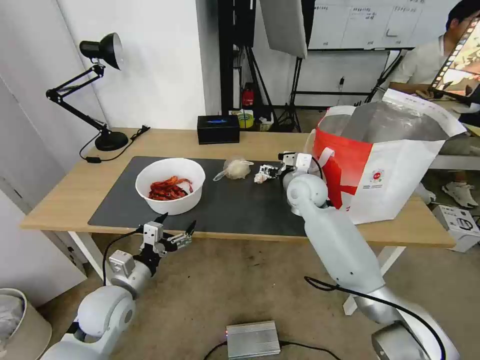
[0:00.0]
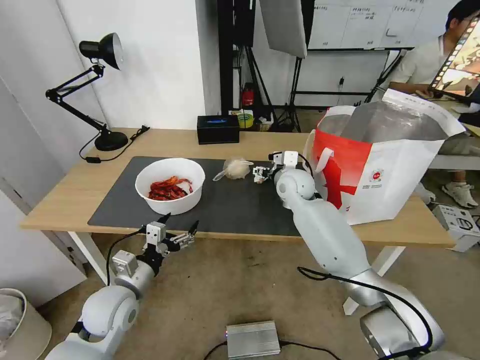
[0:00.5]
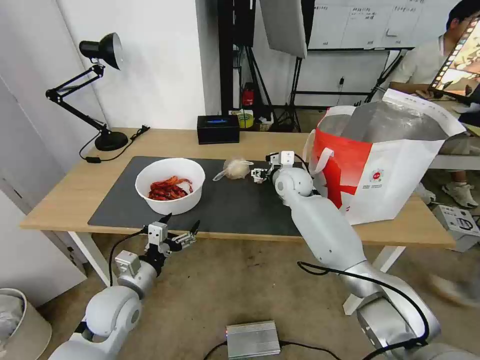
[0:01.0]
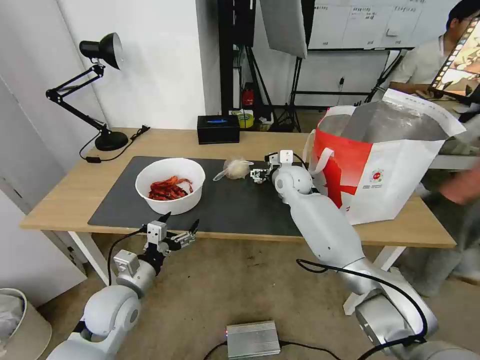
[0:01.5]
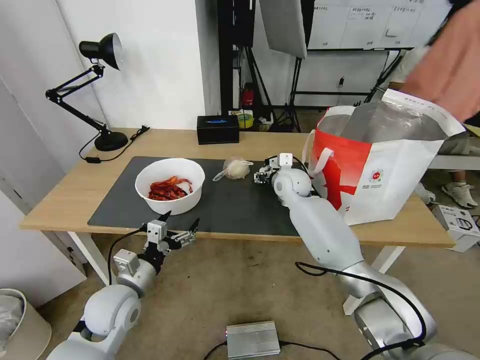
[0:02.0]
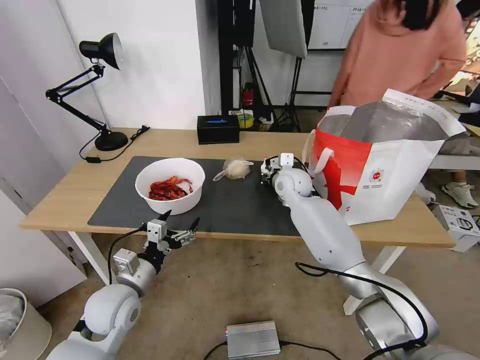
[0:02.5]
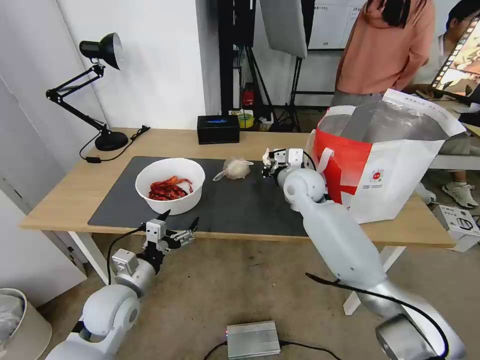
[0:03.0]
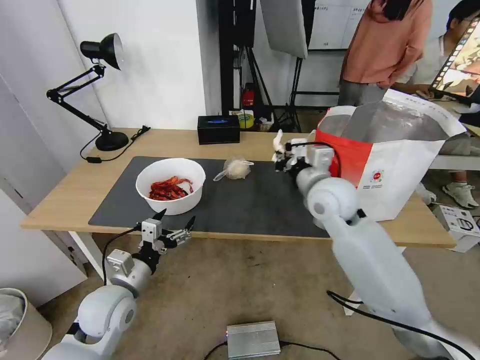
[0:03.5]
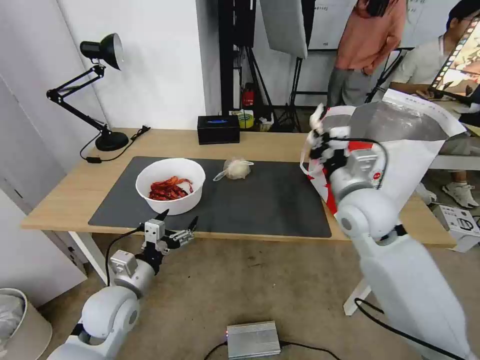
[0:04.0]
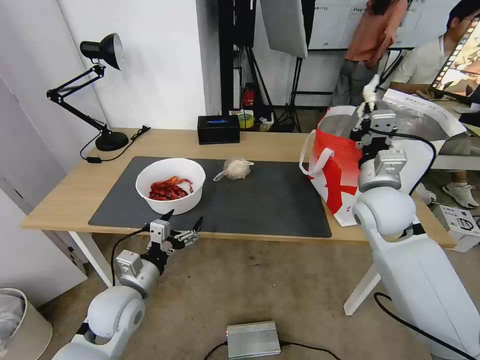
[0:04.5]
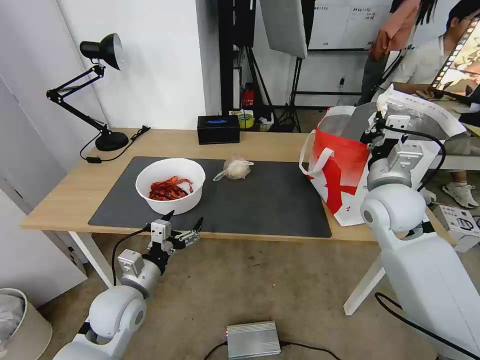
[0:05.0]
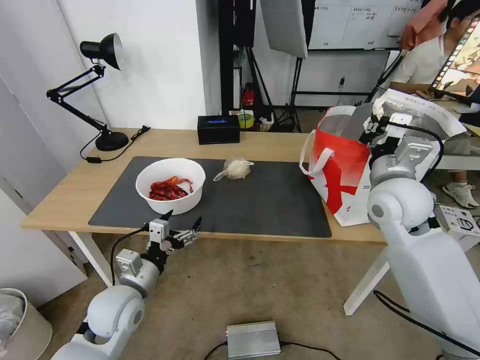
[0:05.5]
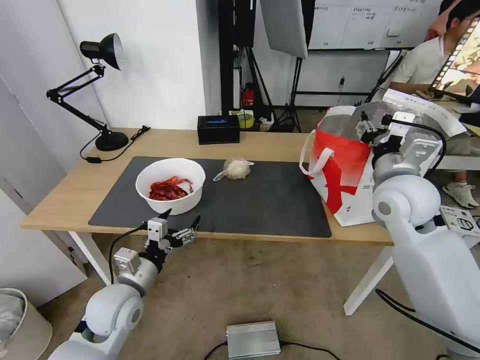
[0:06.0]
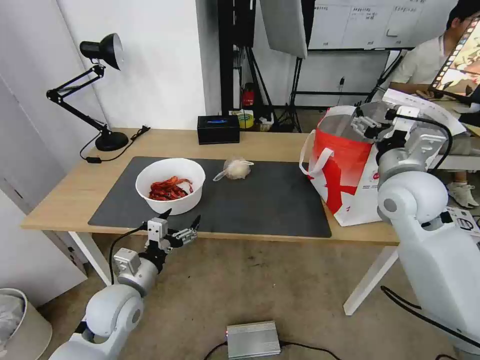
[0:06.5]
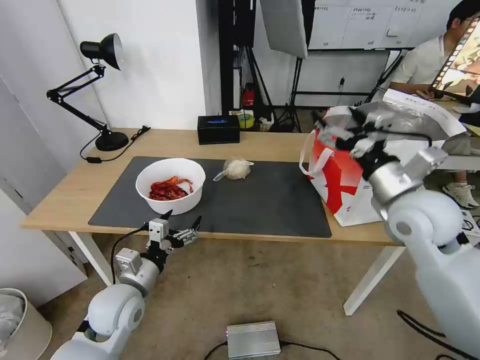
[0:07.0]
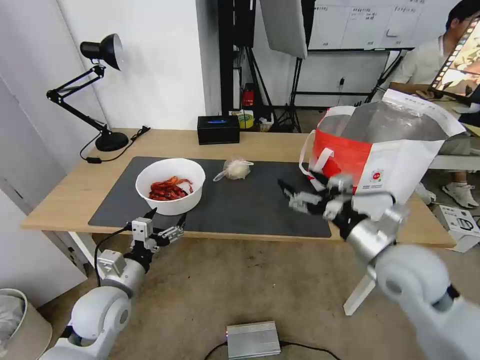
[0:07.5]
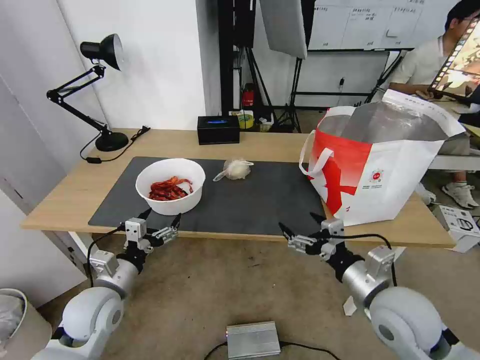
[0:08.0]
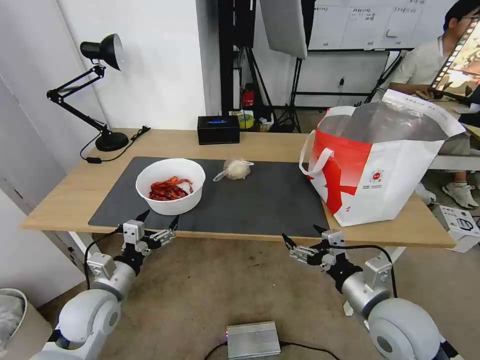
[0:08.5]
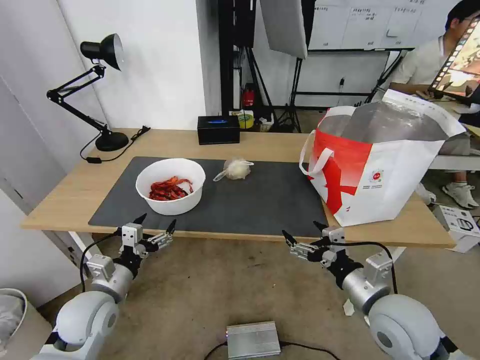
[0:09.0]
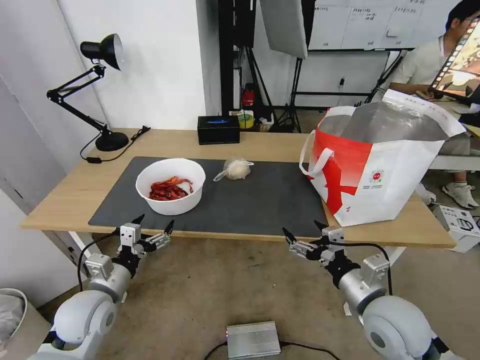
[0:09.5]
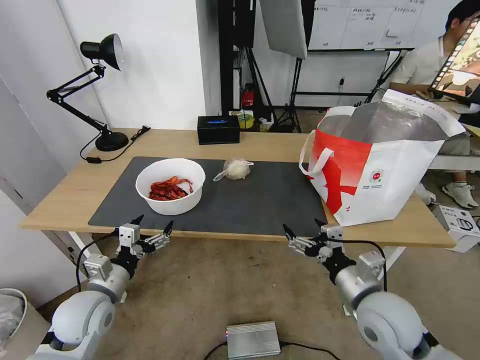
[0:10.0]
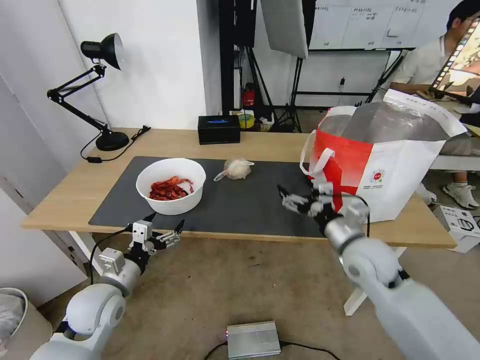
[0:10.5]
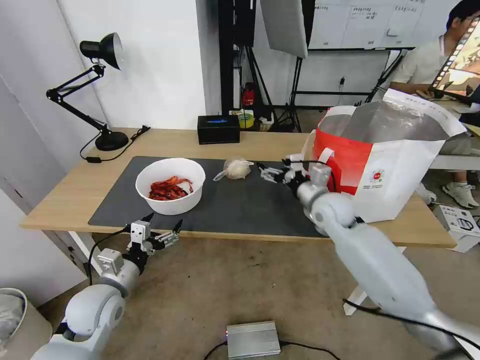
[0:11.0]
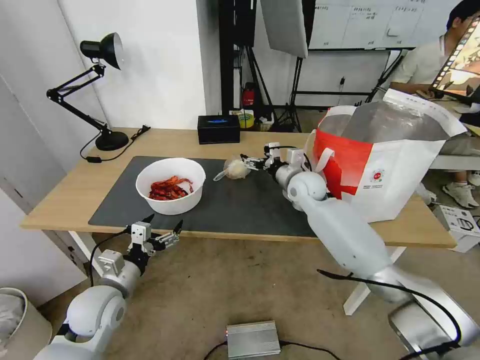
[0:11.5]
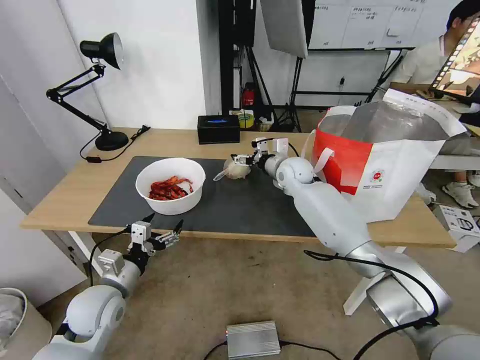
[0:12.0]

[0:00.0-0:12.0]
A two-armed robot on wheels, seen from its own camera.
Task of the whole recording: Pick up the trash from the table and place it into the takeout bag.
0:00.0 to 0:02.0: The right gripper moves forward, approximately 5 cm.
0:02.0 to 0:04.0: The right gripper heads backward, upward and to the right, covering approximately 25 cm, and closes up.
0:04.0 to 0:06.0: The right gripper moves to the right, roughly 5 cm, and opens its fingers.
0:06.0 to 0:08.0: The right gripper is displaced backward and downward by roughly 20 cm, and opens up.
0:08.0 to 0:10.0: The grippers move only a little.
0:10.0 to 0:12.0: The right gripper is displaced forward by some 35 cm.

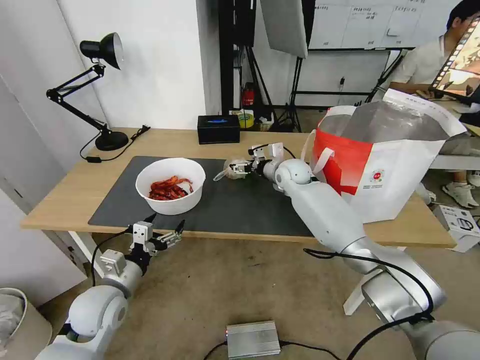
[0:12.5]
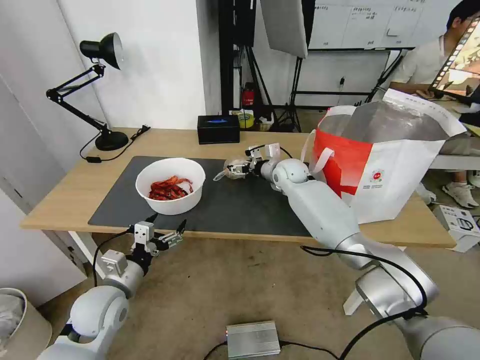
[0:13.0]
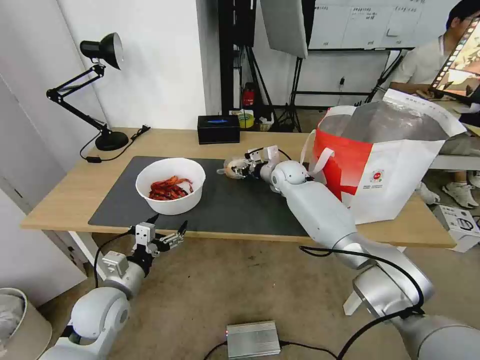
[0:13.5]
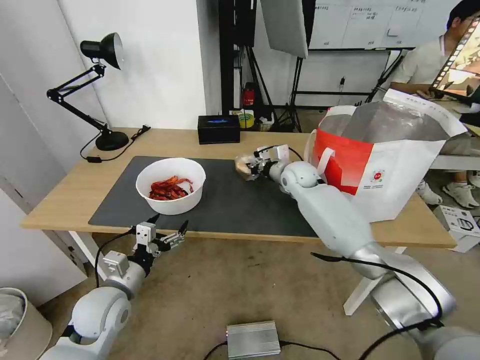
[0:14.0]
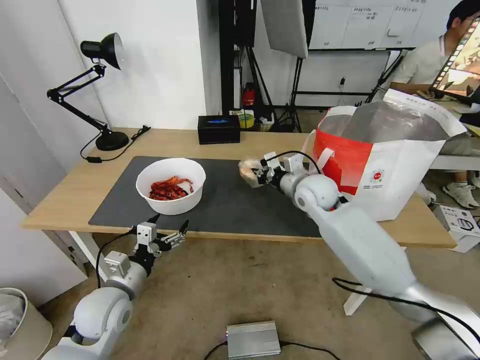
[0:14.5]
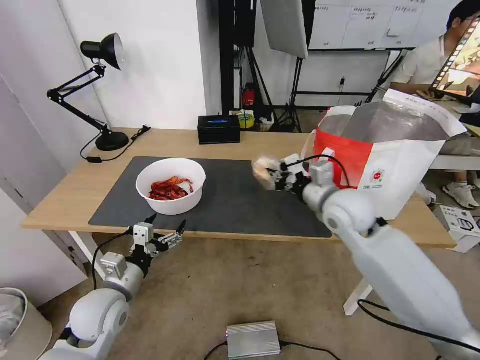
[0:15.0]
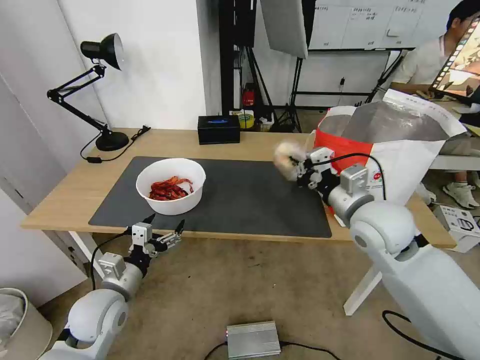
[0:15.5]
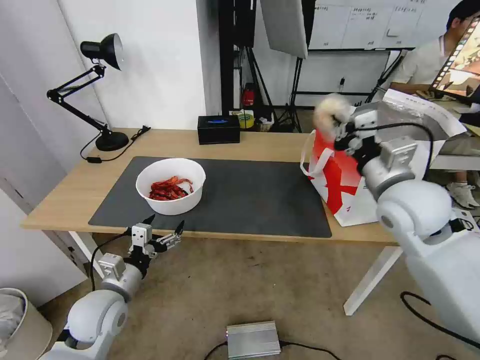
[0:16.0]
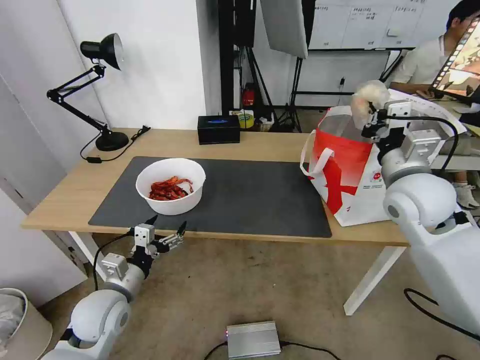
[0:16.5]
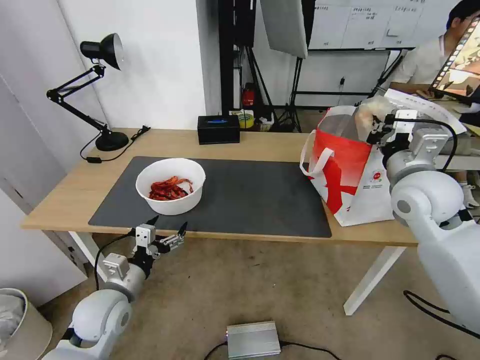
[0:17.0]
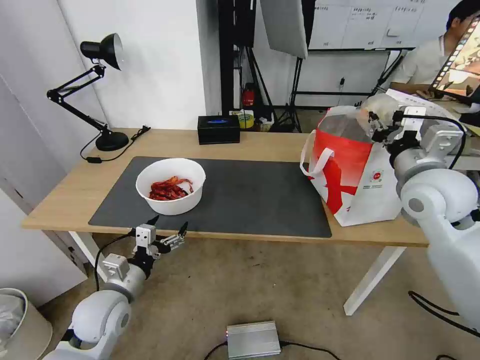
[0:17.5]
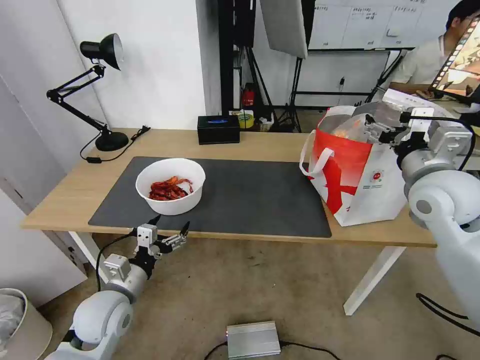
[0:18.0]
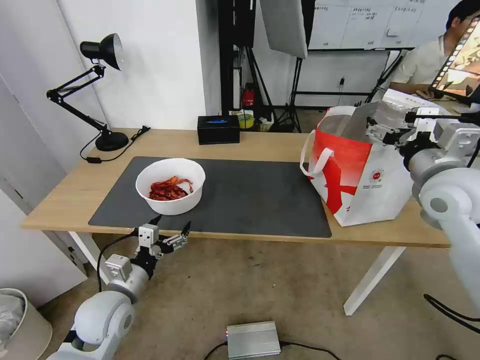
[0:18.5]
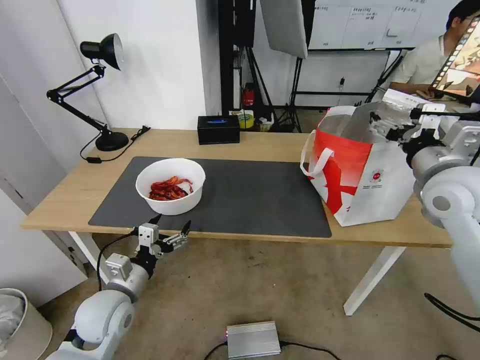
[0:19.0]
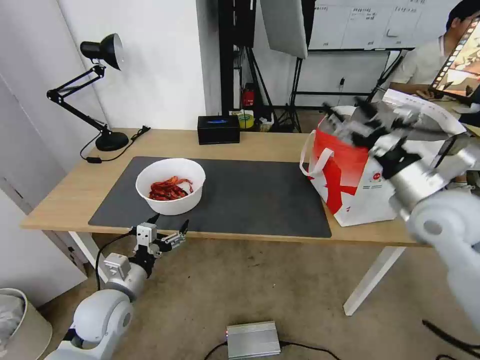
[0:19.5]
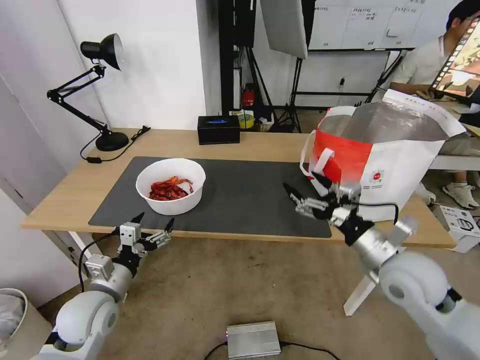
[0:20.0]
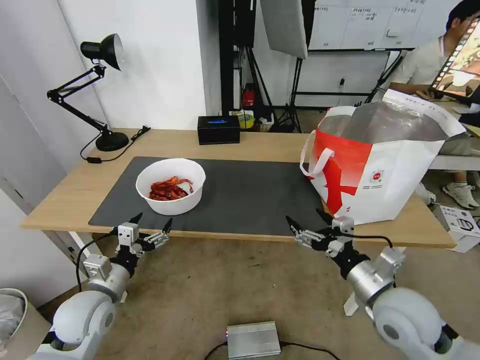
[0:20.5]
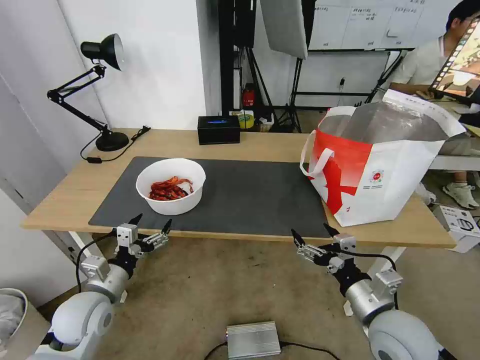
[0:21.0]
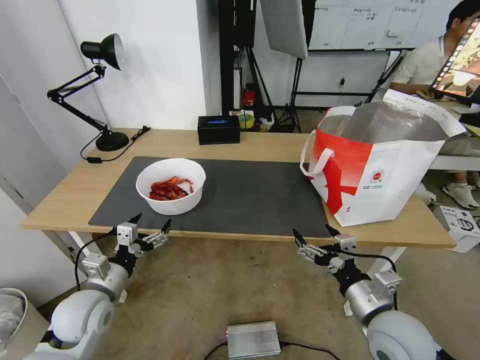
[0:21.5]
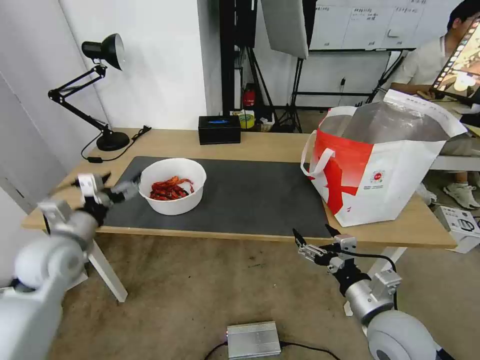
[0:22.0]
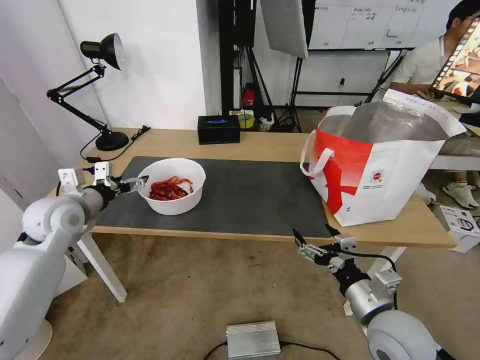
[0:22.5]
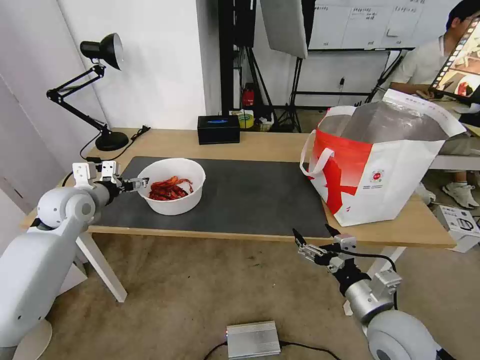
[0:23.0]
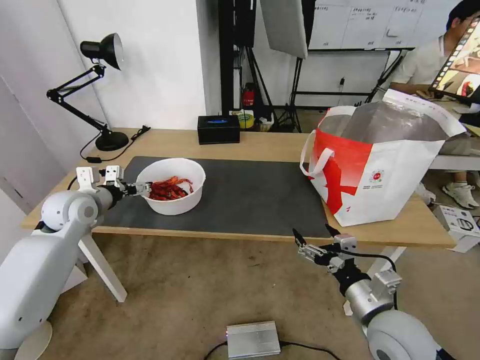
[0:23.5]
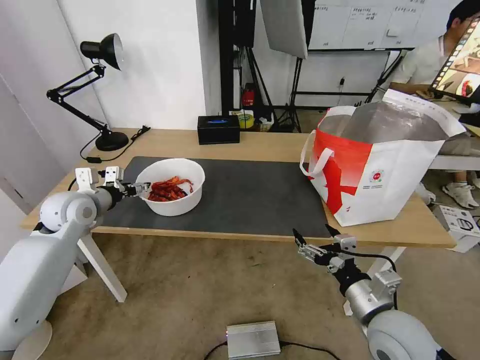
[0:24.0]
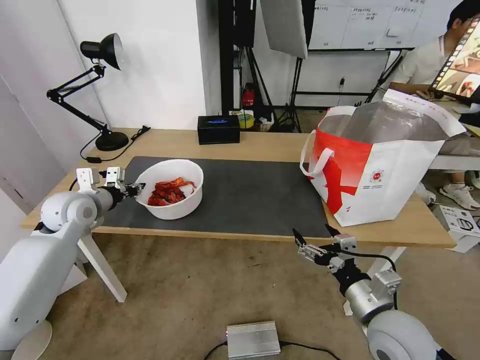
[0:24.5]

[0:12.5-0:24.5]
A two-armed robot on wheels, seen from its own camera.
Task of the whole recording: Pick up the trash from the table and place it into the takeout bag.
0:12.5 to 0:14.5: The right gripper goes approximately 10 cm backward, and closes its fingers.
0:14.5 to 0:16.5: The right gripper goes some 20 cm to the right, backward and upward.
0:16.5 to 0:18.5: The right gripper ends up some 5 cm from where it was, and opens up.
0:18.5 to 0:20.5: The right gripper goes approximately 20 cm downward and backward.
0:20.5 to 0:22.5: The left gripper shifts some 20 cm forward, upward and to the left.
0:22.5 to 0:24.5: The left gripper closes its fingers.

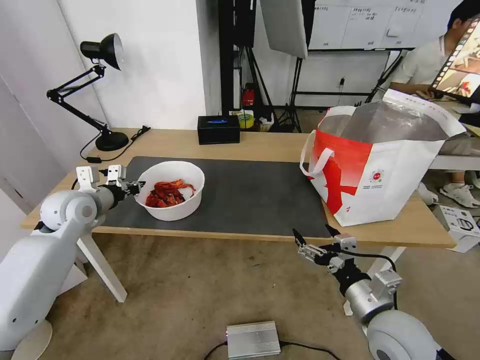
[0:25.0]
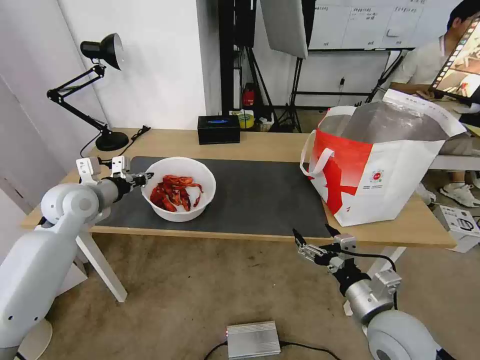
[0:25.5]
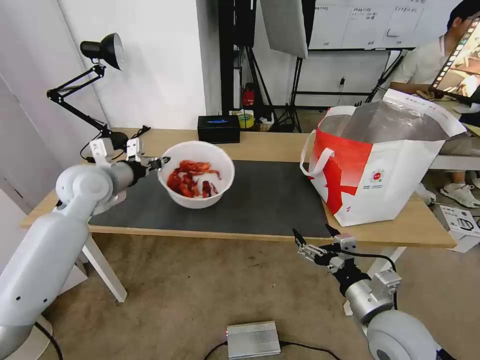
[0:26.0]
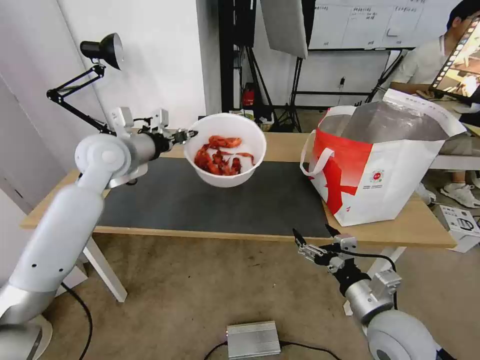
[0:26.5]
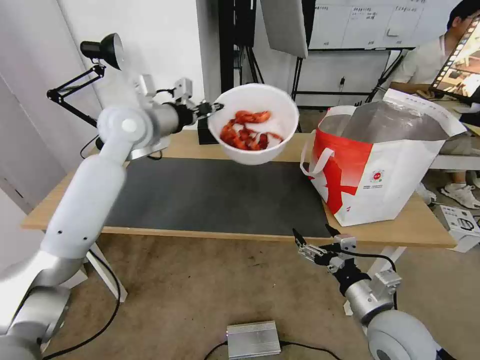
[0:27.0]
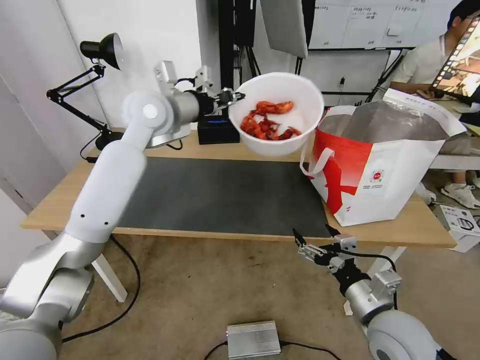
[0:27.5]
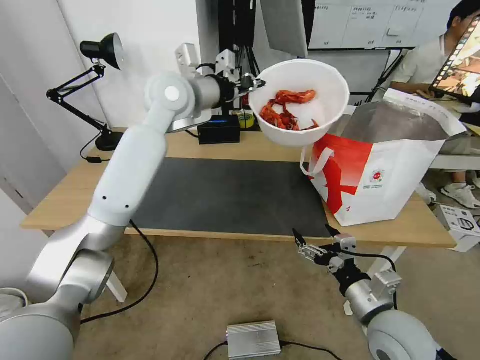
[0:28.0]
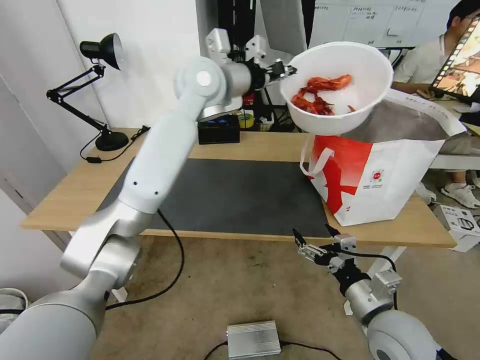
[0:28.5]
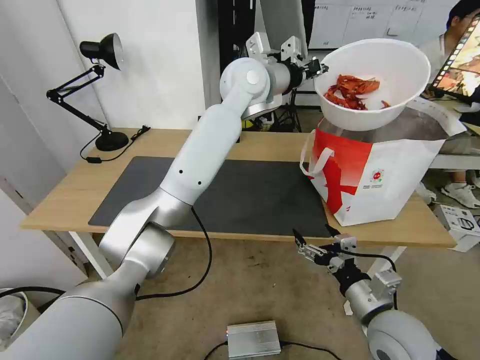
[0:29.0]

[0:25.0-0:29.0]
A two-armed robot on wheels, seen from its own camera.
Task of the whole recording: Pick up the trash from the table and place it into the takeout bag.
0:25.0 to 0:27.0: The left gripper goes about 25 cm upward, to the right and forward.
0:27.0 to 0:29.0: The left gripper heads to the right, covering roughly 20 cm.
